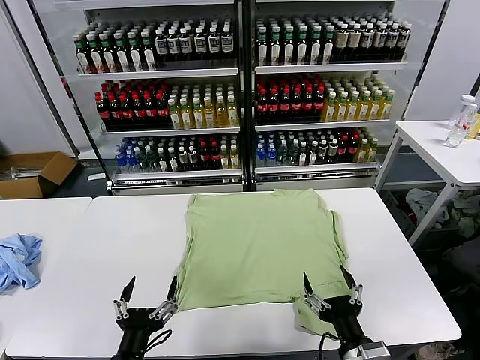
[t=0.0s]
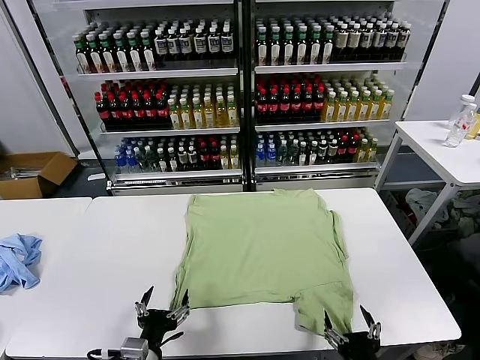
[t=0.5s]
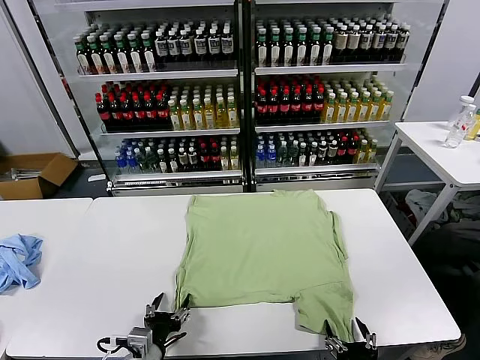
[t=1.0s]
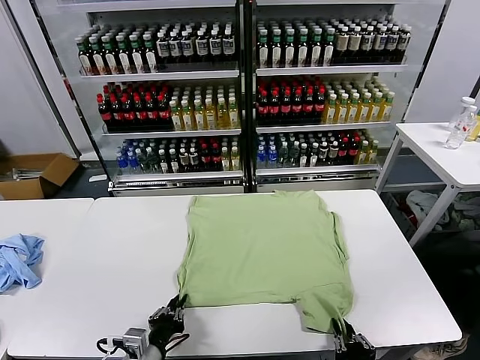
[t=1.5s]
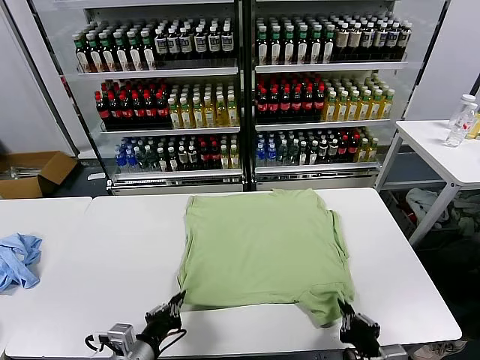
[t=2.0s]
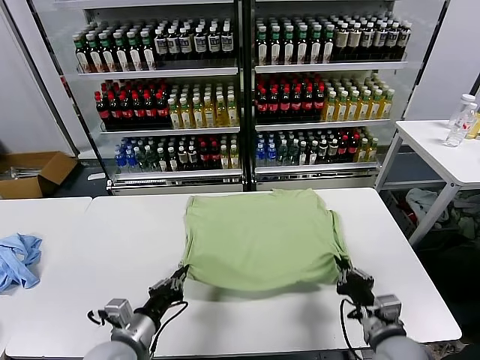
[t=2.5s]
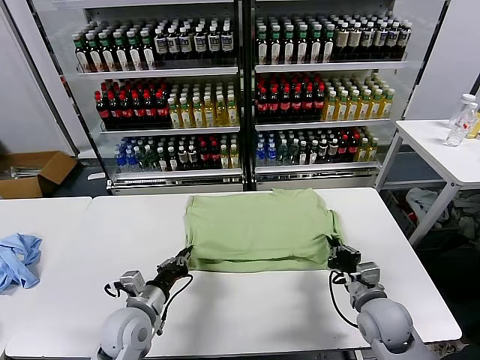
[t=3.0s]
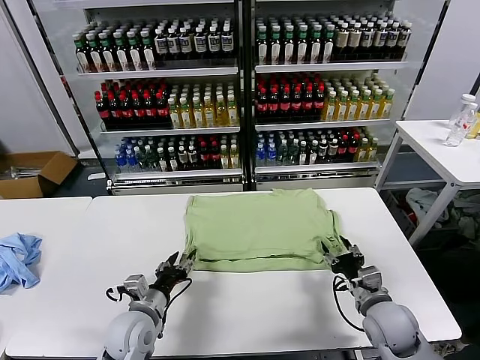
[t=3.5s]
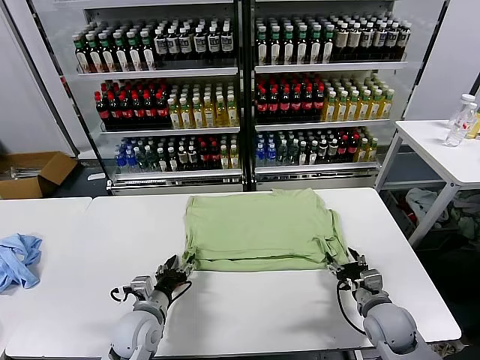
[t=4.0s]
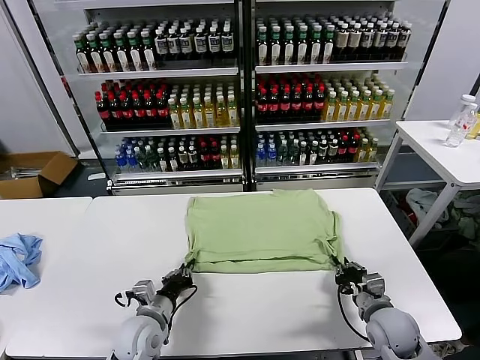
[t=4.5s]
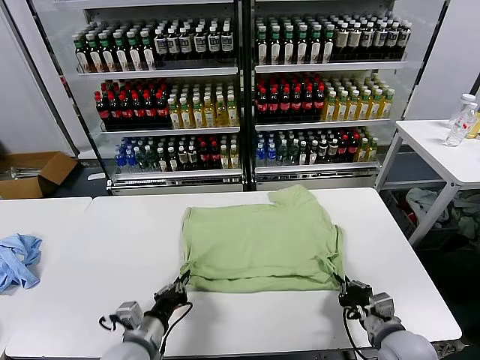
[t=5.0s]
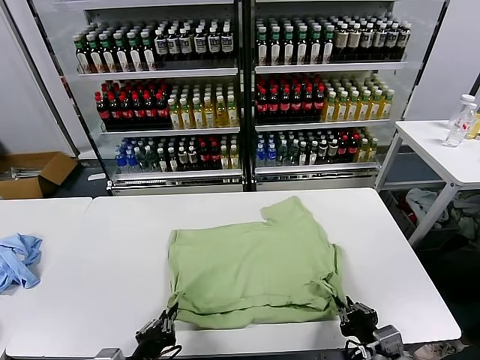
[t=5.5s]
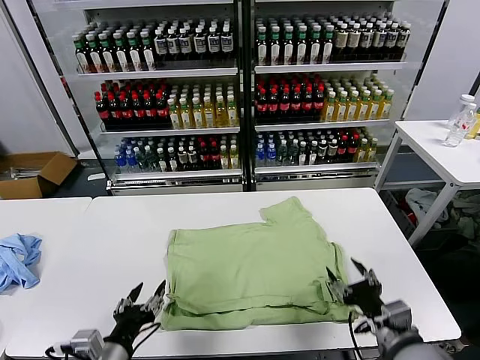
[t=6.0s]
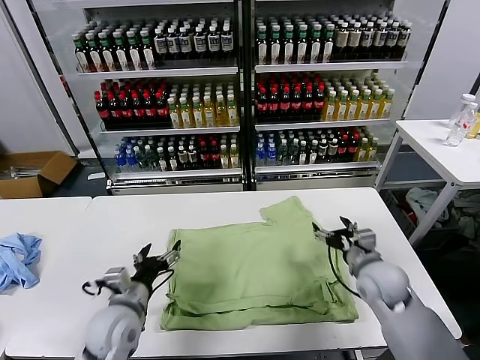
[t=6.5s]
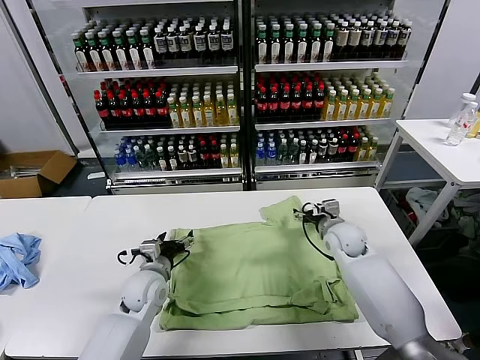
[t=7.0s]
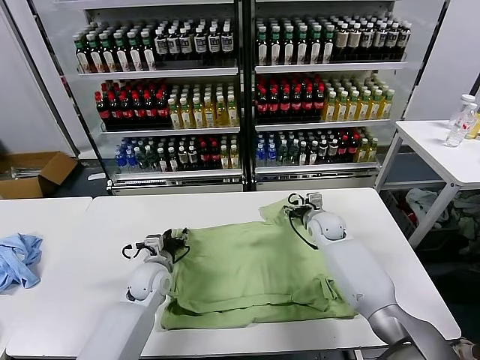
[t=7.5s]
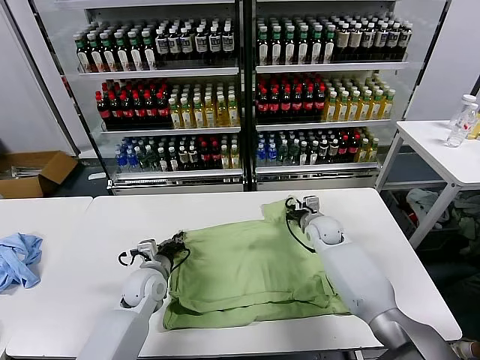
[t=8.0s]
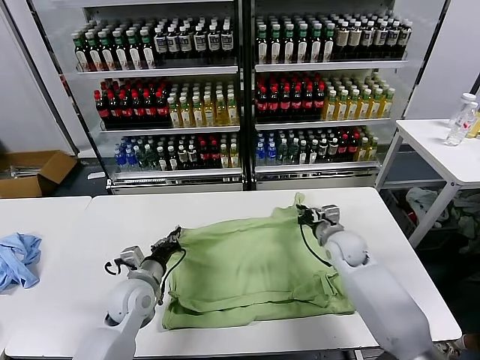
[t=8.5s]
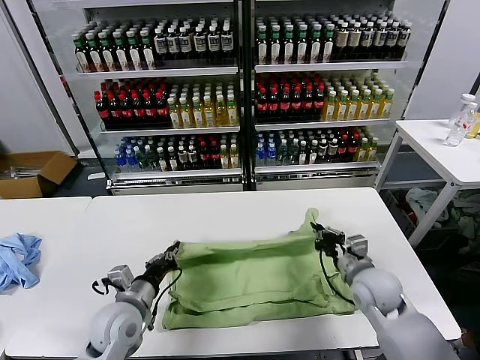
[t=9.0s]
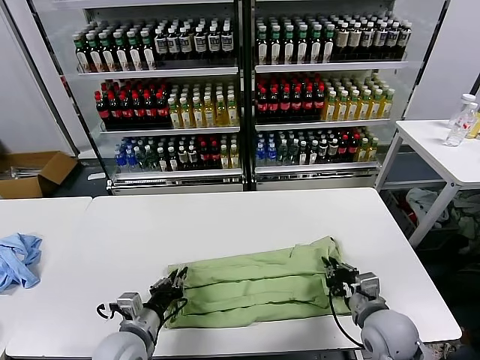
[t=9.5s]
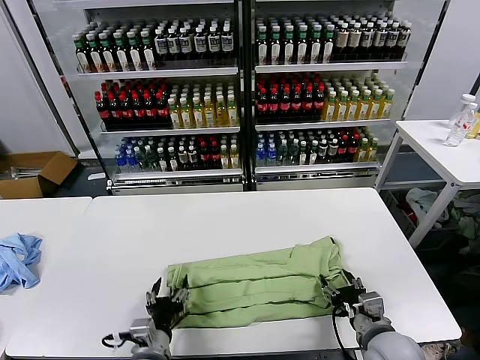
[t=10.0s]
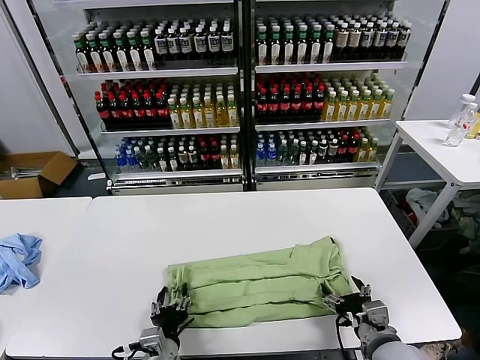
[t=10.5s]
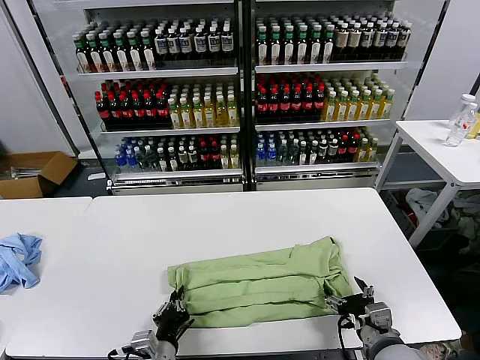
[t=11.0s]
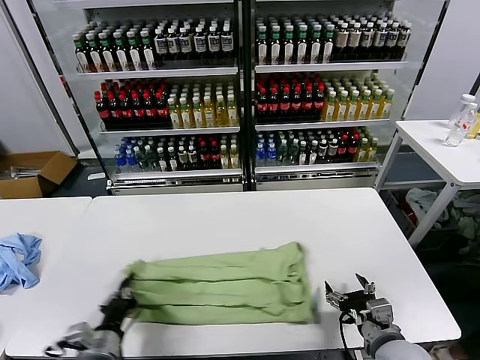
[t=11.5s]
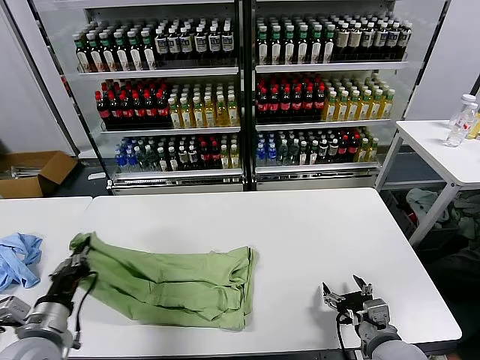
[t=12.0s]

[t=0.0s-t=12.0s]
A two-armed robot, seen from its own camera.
Task of the whole recording: fold and organize the clothes.
Step, t=0.0s to t=1.5s: use both grippers simultaneously to clamp the lower edge of the clothing fabric.
Step, t=2.0s to t=3.0s: use both grippers to drag the lower edge of the fabric forward and fold it over the upper edge.
Step, t=3.5s to t=5.5s: Drag the clothes downward with both gripper.
Step, t=6.0s to t=8.0s: use both grippers simultaneously to clamp the upper edge of the clothing fabric.
Step, t=8.5s to t=9.5s: use both grippers to drag the upper edge of the fabric backward and fold it over the lower edge.
Step, t=10.0s to t=11.0s: use the left gripper to clamp the left edge of the fabric.
t=2.0s to t=4.0s: The left gripper is displaced forward and downward by some 15 cm, and opens. Meanwhile the right gripper travels forward by approximately 15 cm, and opens its fingers.
t=4.0s to t=6.0s: The right gripper goes some 15 cm upward and backward, and closes, then reopens. The left gripper heads backward and upward, covering approximately 15 cm, and closes, then opens again.
t=6.0s to t=8.0s: The grippers both shift forward by roughly 25 cm. The right gripper closes its fingers; the left gripper closes up.
t=8.0s to t=10.0s: The right gripper travels backward by some 30 cm, and opens; the left gripper heads backward, covering some 20 cm, and opens.
t=10.0s to t=12.0s: The left gripper is displaced to the left and upward by about 20 cm, and closes.

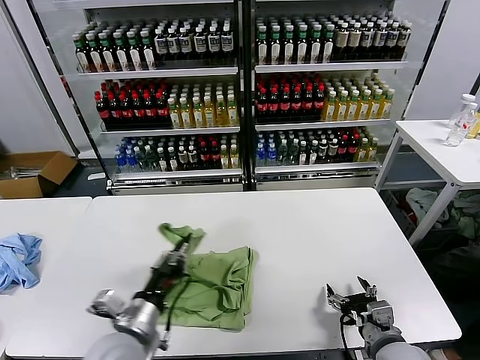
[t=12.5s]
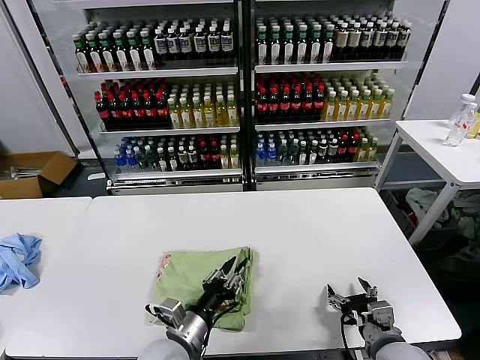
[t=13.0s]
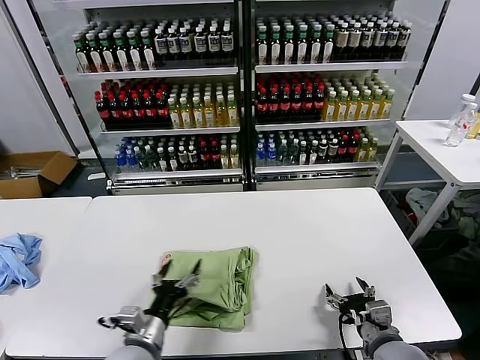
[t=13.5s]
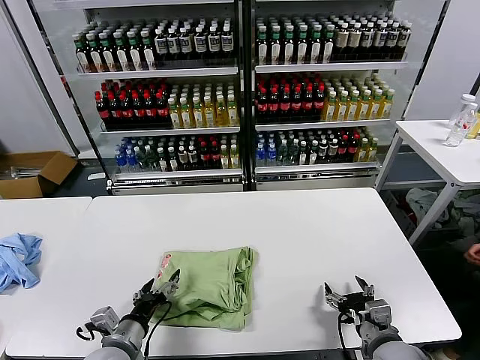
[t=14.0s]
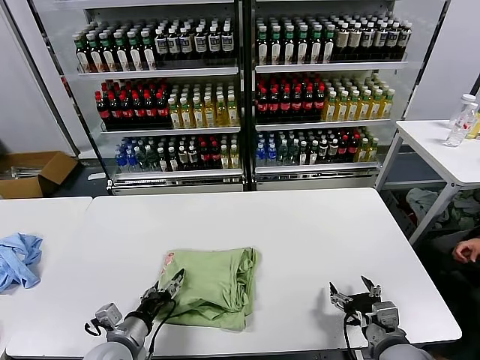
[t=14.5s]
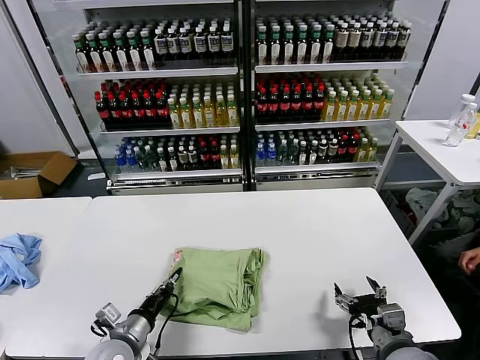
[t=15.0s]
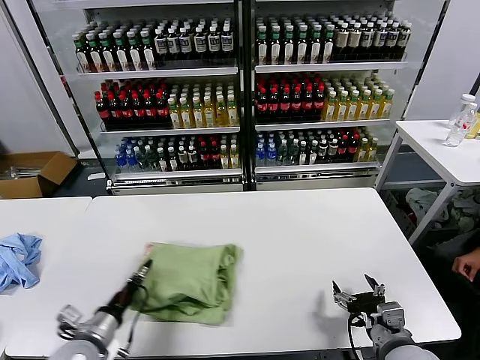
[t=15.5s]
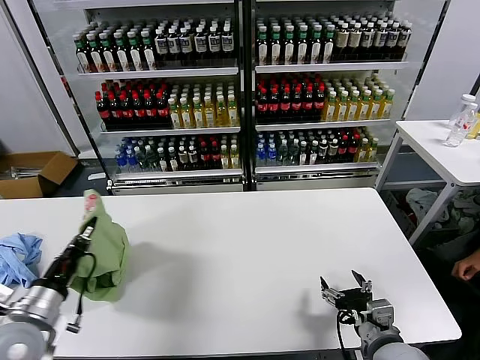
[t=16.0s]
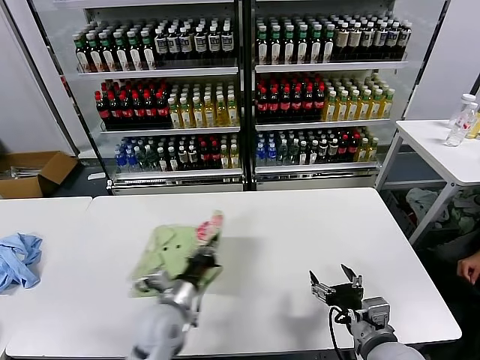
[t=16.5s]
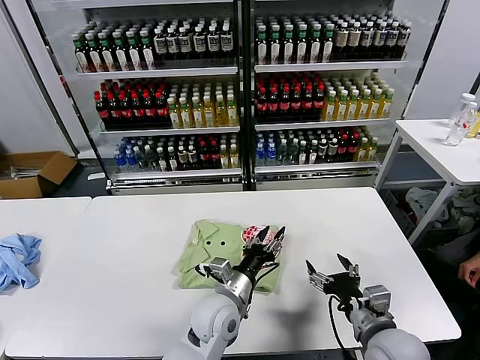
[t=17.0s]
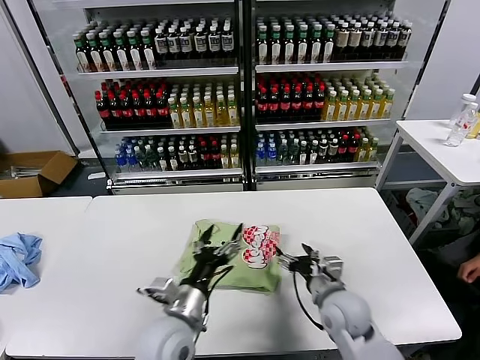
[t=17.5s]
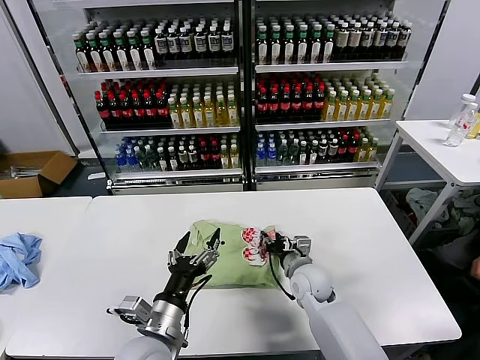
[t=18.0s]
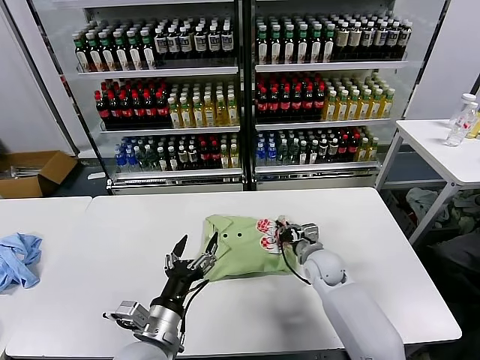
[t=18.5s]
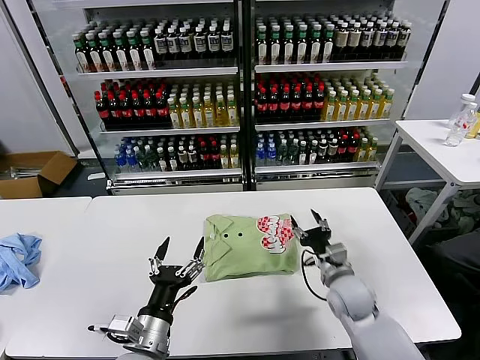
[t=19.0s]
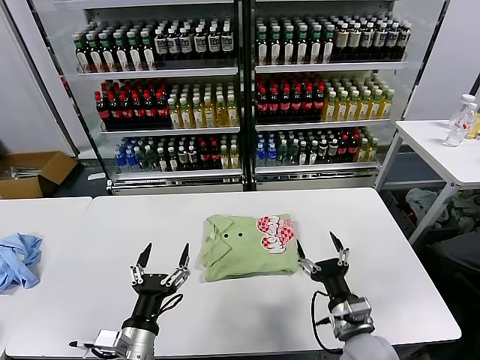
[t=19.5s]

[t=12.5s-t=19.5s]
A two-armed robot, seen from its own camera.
Task of the whole recording: fold and organize the clothes.
Step, t=13.0s to t=16.5s: Flip the folded clothes over with left gripper.
Step, t=17.0s to t=18.5s: Drag the clothes to the center of the table.
t=12.5s to t=14.5s: The left gripper travels downward and to the left by about 10 cm, and opens its fingers.
t=14.5s to t=16.0s: The left gripper travels upward and to the left by about 15 cm, and closes.
t=16.0s to t=17.5s: The right gripper shifts roughly 10 cm forward and to the left, while the left gripper moves to the right, approximately 25 cm, and opens its fingers.
t=17.5s to t=19.5s: The left gripper goes some 10 cm backward and to the left, while the right gripper moves approximately 15 cm forward and comes back, and closes and opens again.
